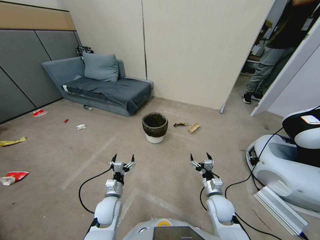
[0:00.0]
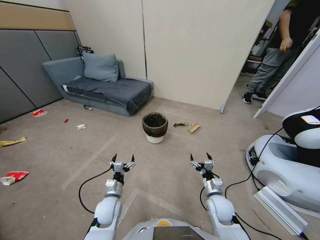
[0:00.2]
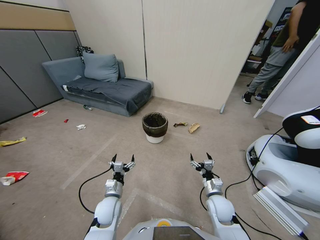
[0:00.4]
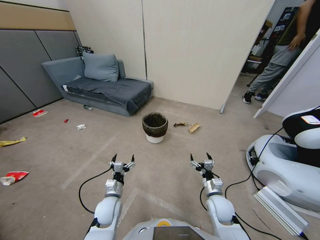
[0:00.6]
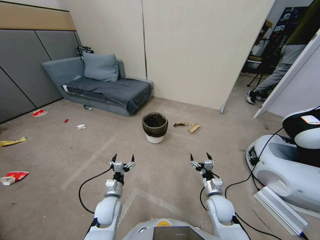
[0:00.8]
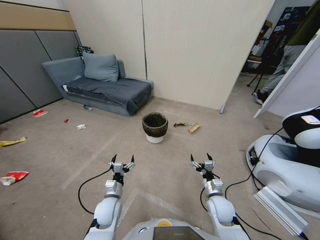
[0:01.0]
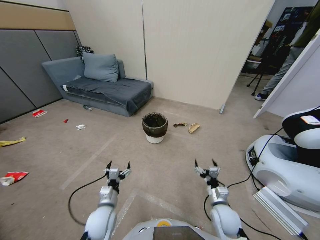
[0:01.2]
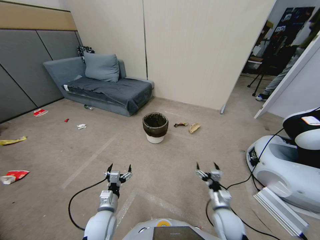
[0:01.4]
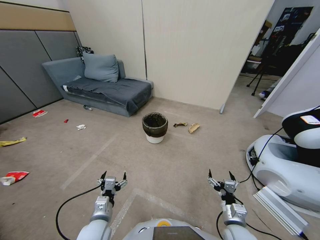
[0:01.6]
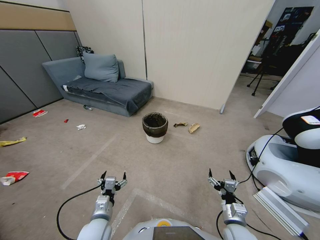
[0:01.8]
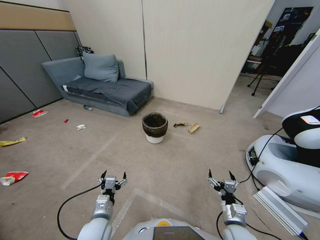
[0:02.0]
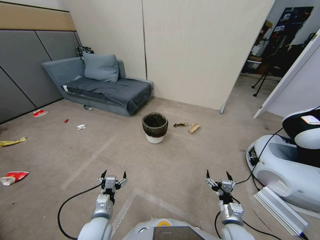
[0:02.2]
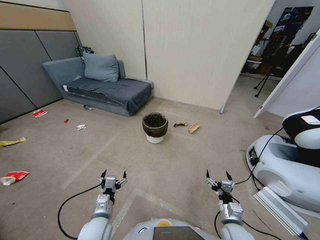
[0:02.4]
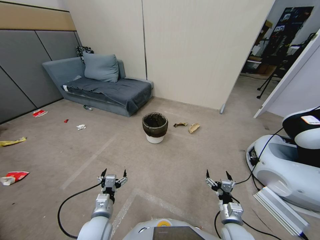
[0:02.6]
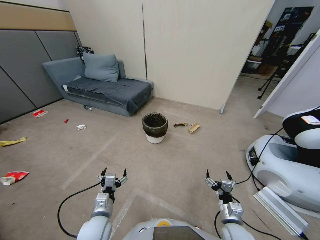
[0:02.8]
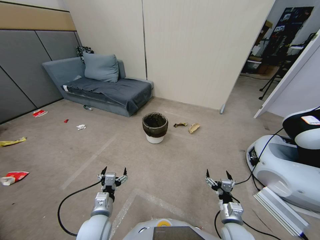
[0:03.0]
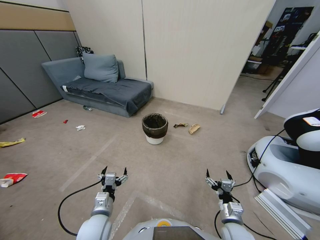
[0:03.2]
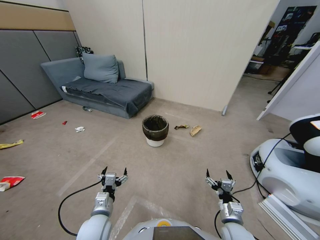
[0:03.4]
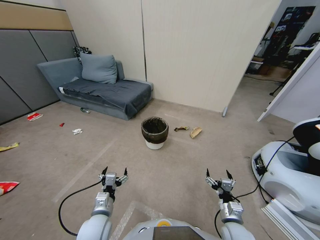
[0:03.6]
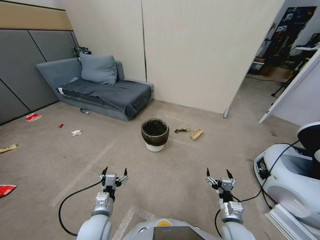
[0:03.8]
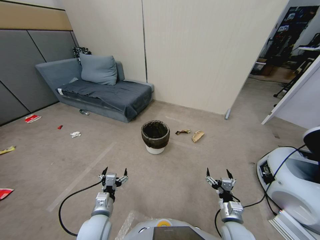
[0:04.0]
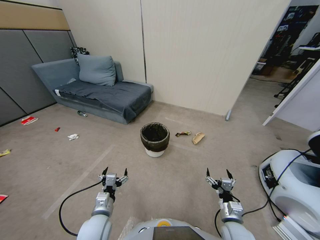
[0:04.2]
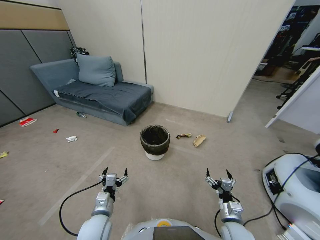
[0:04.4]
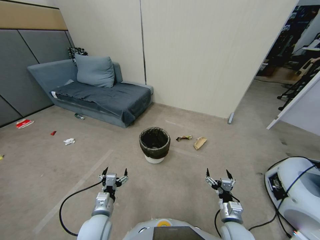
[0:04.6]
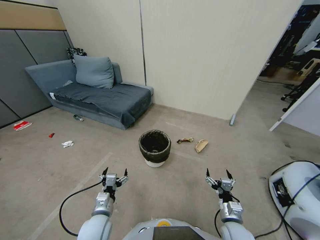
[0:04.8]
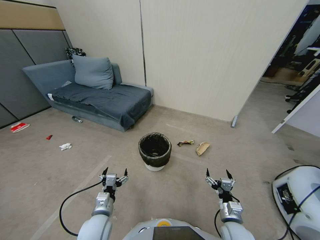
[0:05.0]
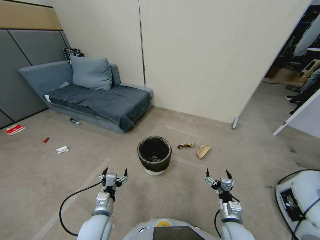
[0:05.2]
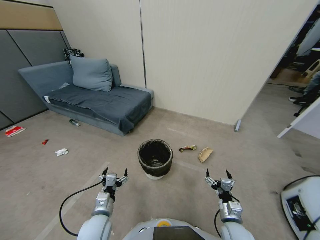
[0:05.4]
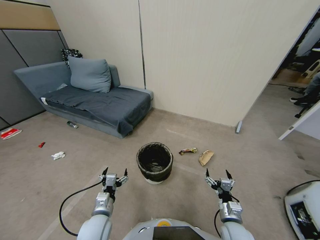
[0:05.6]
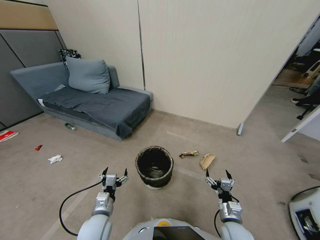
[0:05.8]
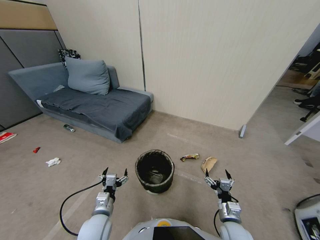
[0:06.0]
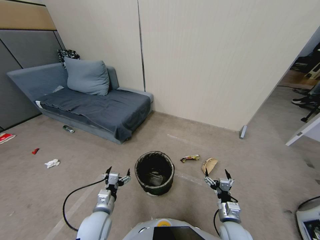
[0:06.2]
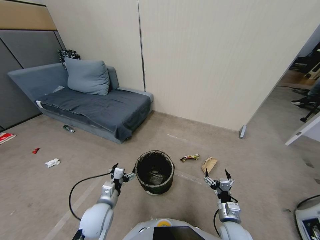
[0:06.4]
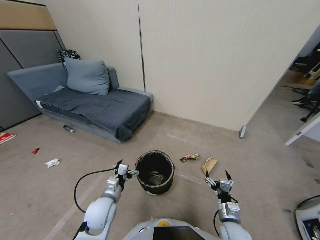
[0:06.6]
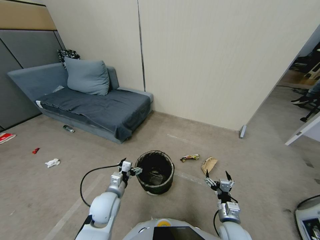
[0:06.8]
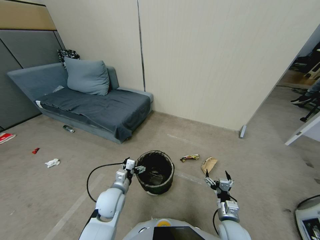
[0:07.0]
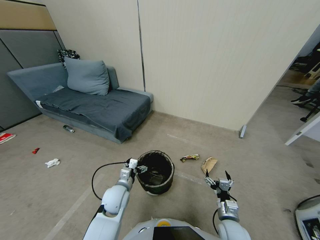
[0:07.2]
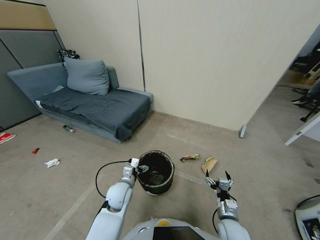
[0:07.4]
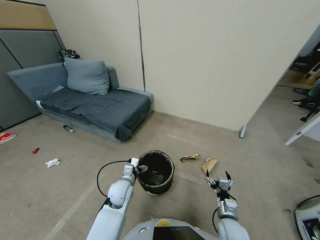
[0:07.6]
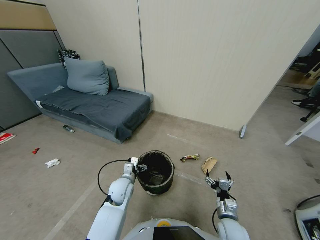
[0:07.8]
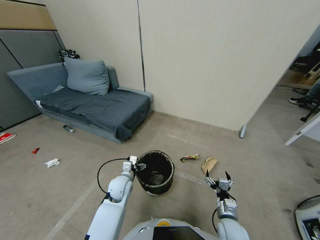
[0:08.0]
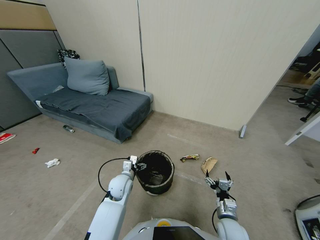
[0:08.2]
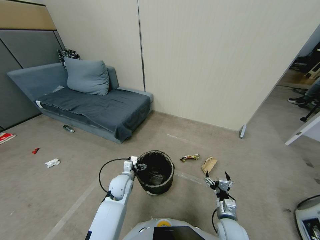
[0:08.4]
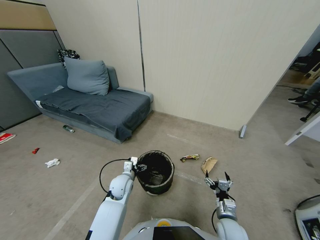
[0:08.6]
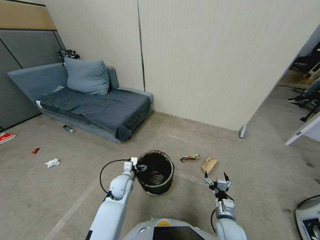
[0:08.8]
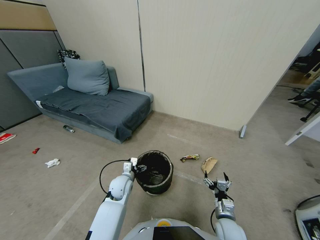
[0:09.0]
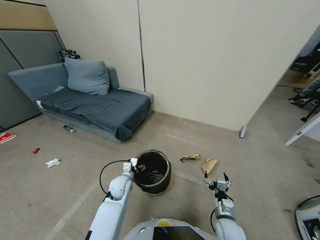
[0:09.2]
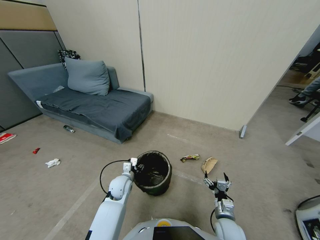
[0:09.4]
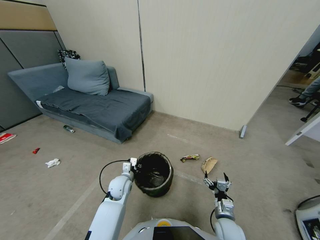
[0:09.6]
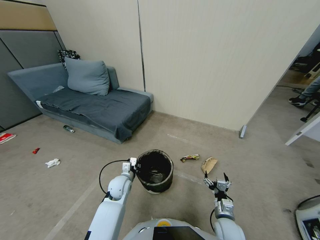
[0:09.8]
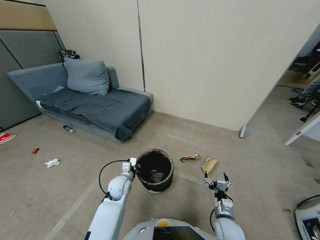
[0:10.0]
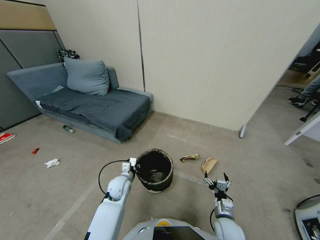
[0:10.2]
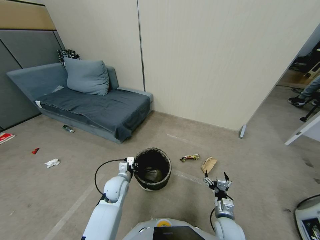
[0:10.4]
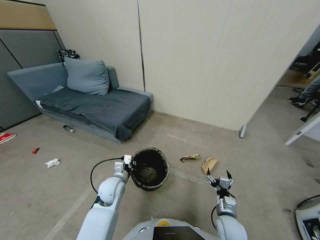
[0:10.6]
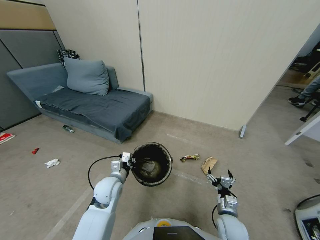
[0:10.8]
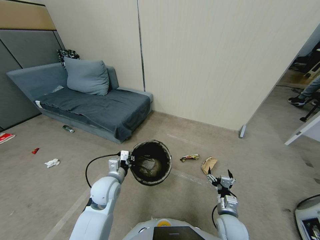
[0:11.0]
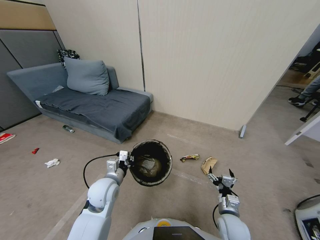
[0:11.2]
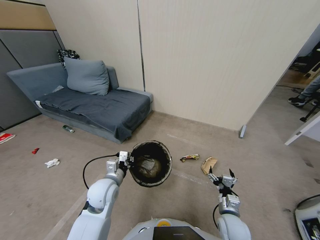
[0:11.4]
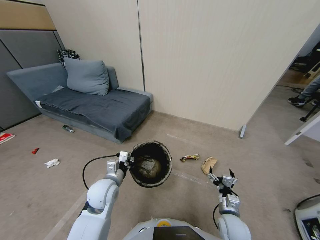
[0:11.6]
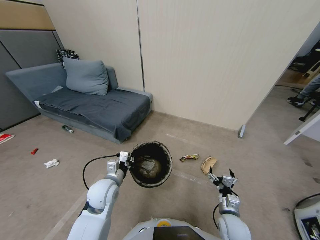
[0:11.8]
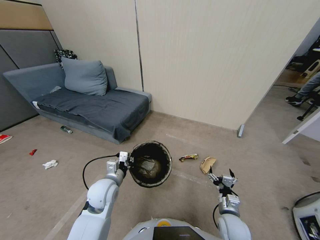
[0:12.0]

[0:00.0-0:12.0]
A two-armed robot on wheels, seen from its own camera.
Task of the whole recording: Pick up the trash bin, then pick up the garbage from the floor and place it into the trash bin.
0:01.6 to 0:03.0: Neither gripper changes place.
0:06.0 to 0:07.6: The left gripper is displaced forward and to the right by roughly 15 cm.
0:07.6 to 0:09.0: There are only small adjustments of the grippers.
0:09.0 to 0:10.4: The left gripper ends up approximately 5 cm from where it was, and closes.
0:10.4 to 0:12.0: The left gripper shifts by about 5 cm.

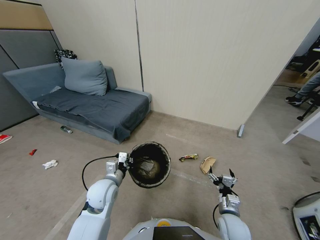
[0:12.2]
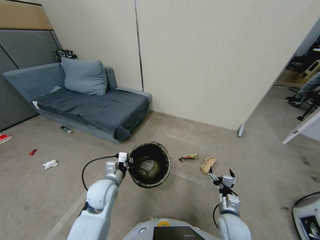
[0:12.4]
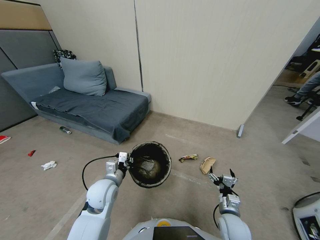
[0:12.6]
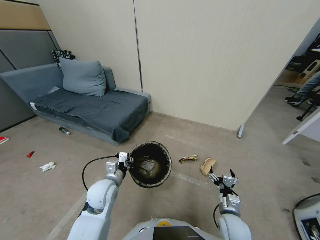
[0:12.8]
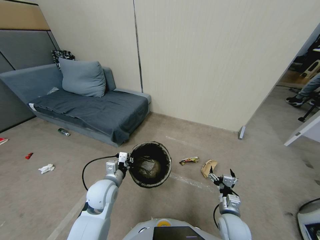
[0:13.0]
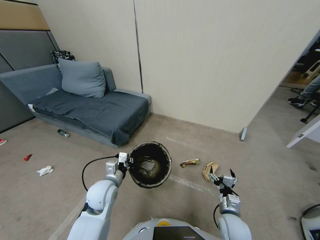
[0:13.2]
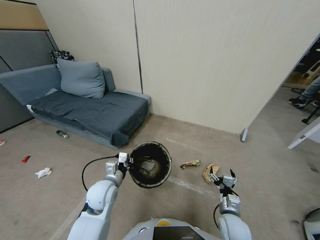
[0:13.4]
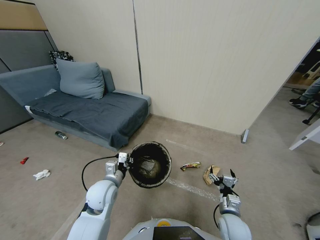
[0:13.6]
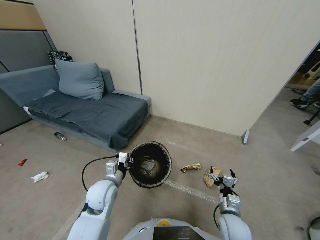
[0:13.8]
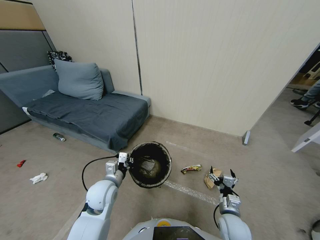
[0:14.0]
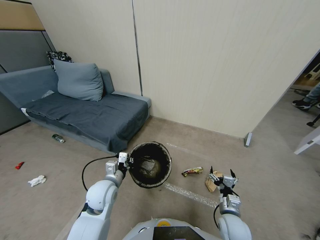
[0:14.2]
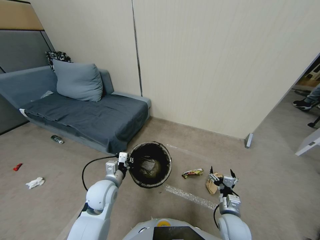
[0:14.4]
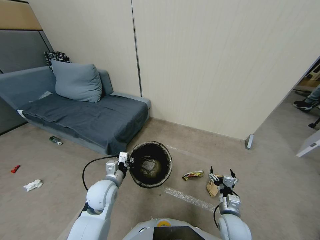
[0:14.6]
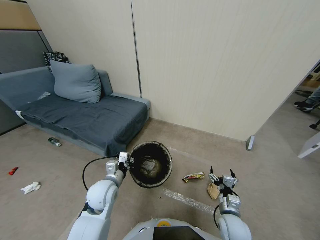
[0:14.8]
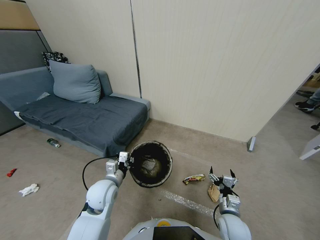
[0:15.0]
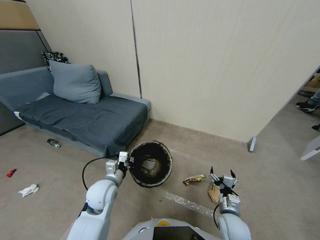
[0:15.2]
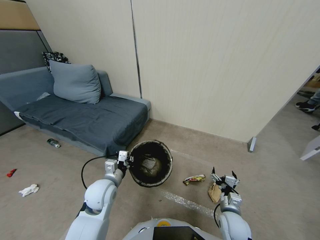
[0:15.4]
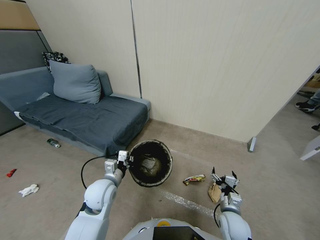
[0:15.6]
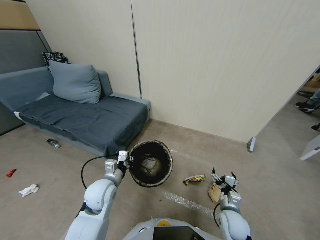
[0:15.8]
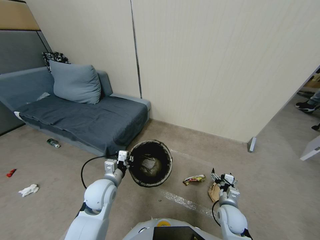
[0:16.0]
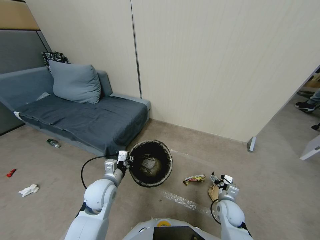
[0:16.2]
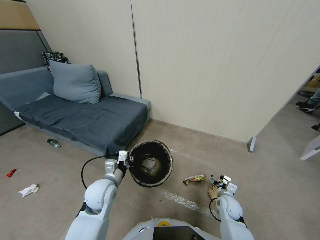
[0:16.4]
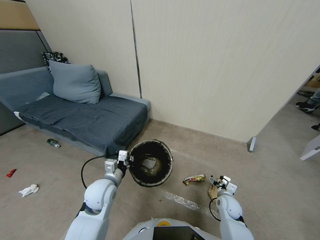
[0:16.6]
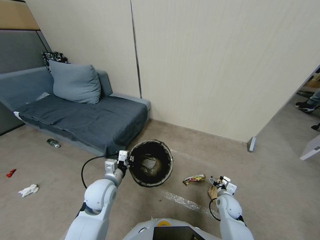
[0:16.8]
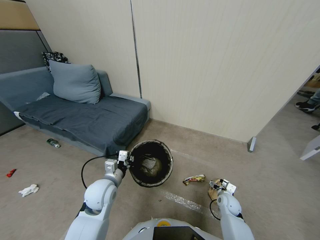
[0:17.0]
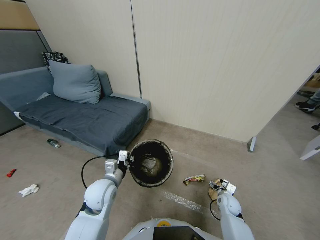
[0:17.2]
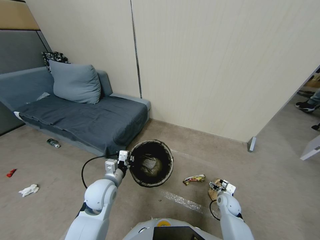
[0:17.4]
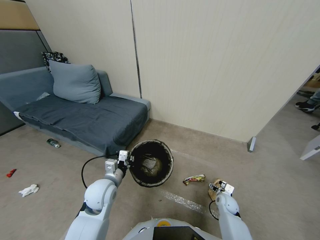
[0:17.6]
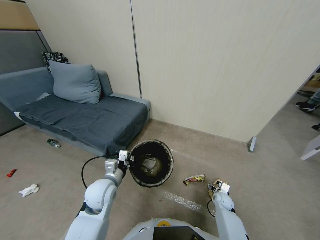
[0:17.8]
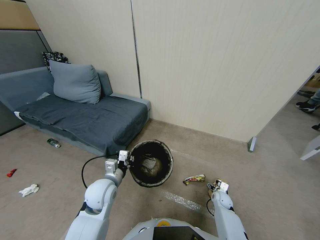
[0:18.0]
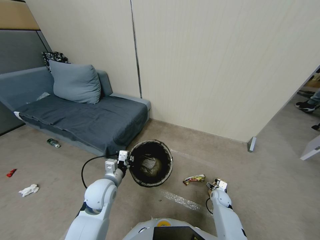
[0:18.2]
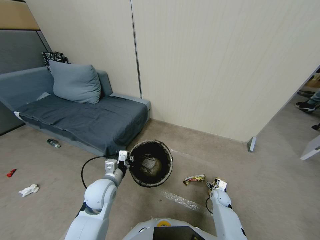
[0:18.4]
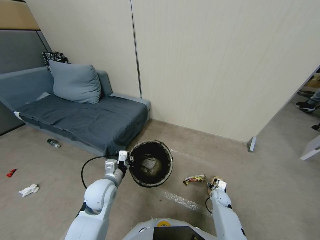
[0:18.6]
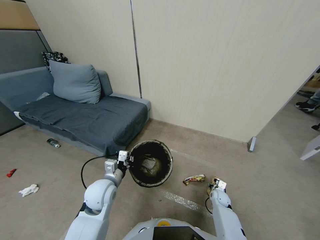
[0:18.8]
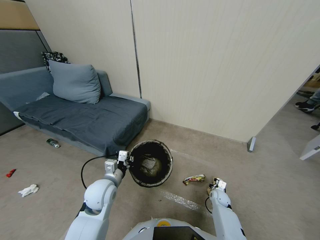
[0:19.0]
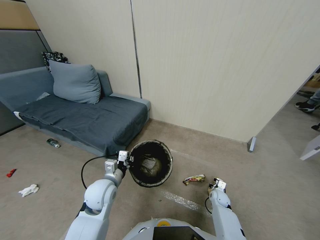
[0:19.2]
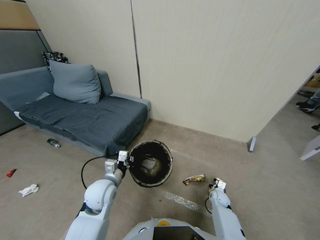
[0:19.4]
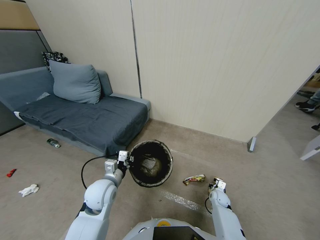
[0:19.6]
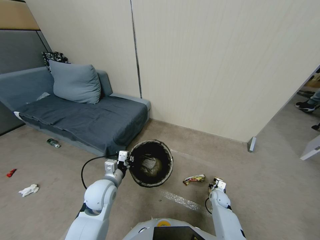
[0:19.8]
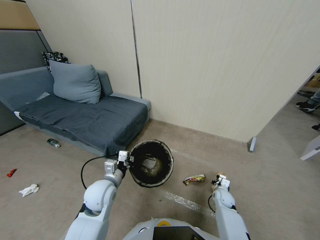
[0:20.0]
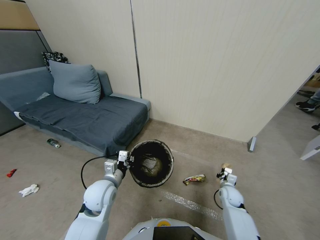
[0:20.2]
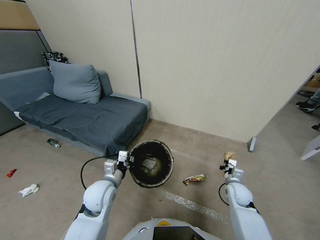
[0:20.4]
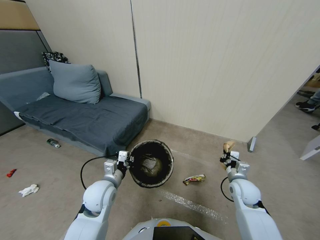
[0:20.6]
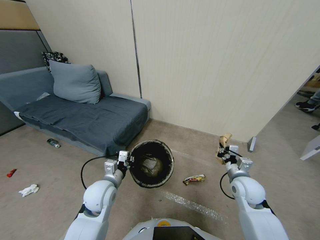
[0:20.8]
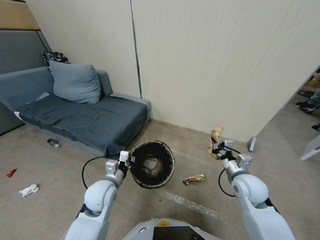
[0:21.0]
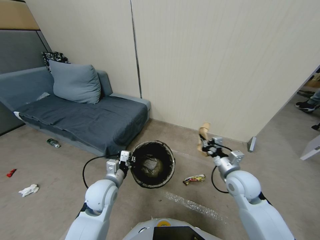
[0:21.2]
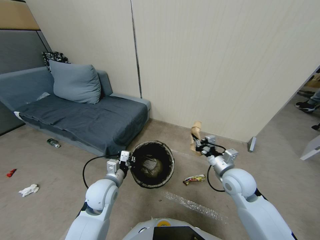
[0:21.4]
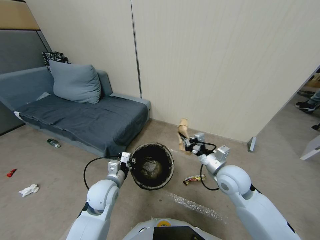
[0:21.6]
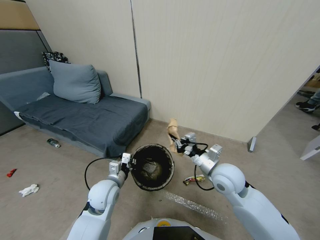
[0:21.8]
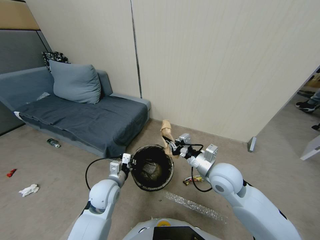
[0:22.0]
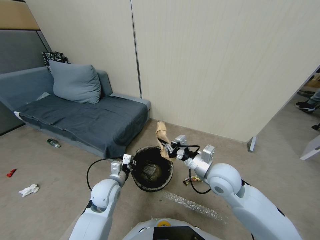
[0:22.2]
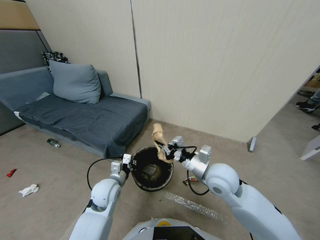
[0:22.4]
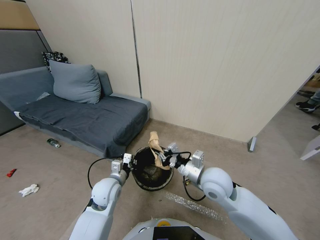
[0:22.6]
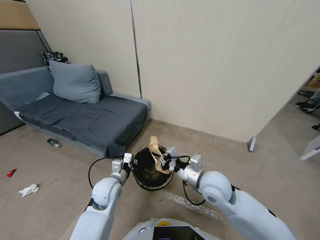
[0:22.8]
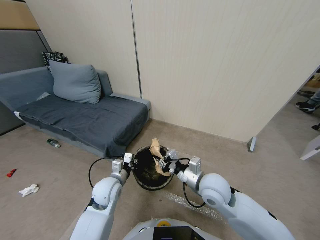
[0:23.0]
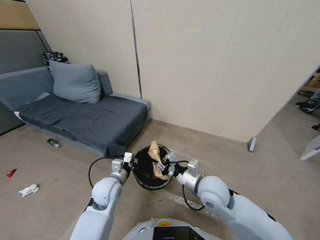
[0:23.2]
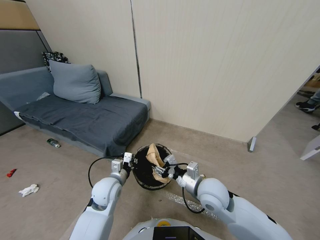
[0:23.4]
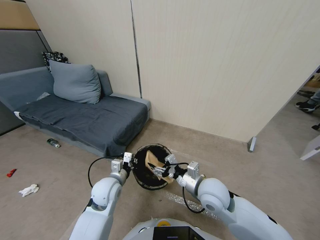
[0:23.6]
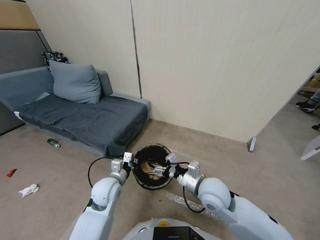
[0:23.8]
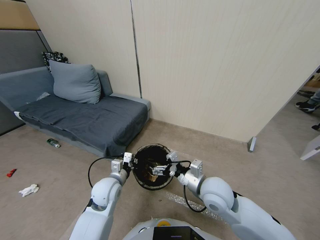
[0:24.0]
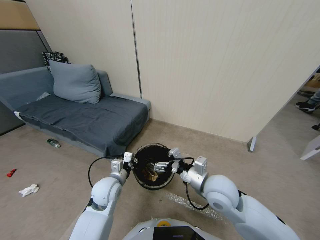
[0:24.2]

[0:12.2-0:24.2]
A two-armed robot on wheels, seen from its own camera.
Task of the whole recording: Pick up the trash bin, then pick up the garbage from the floor and place it into the trash bin.
0:12.2 to 0:15.2: Both grippers stay about where they are.
0:15.2 to 0:16.6: The right gripper moves forward and downward, approximately 10 cm.
0:16.6 to 0:18.2: The right gripper goes about 10 cm downward and forward.
0:19.8 to 0:21.2: The right gripper shifts about 30 cm upward.
0:21.2 to 0:22.6: The right gripper moves to the left, approximately 10 cm.
0:22.6 to 0:24.2: The right gripper opens up.
